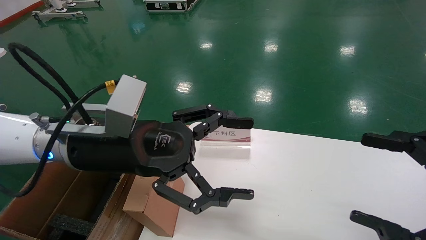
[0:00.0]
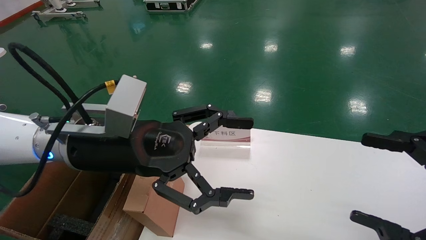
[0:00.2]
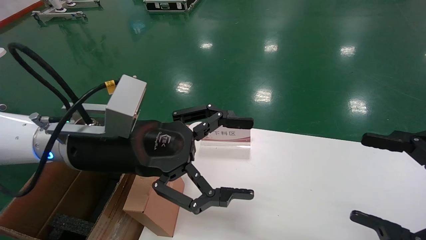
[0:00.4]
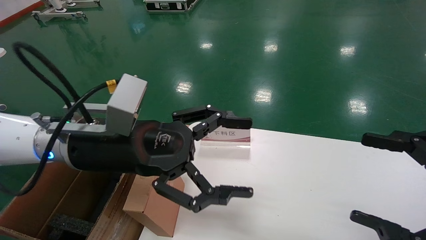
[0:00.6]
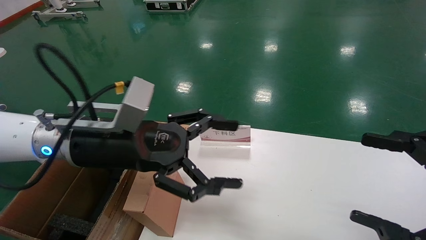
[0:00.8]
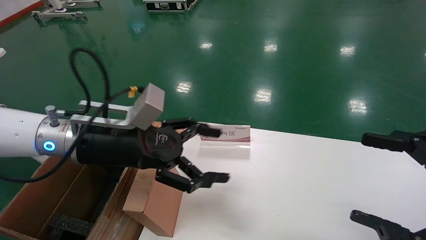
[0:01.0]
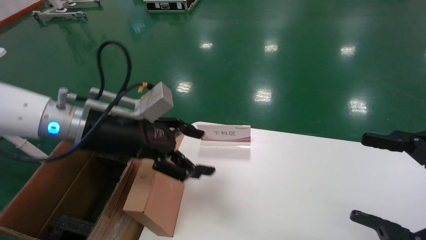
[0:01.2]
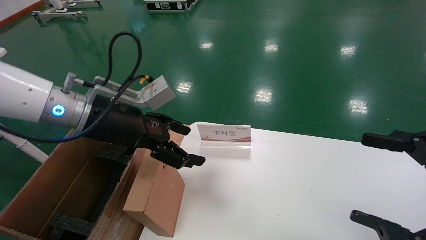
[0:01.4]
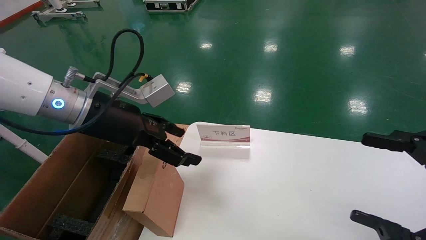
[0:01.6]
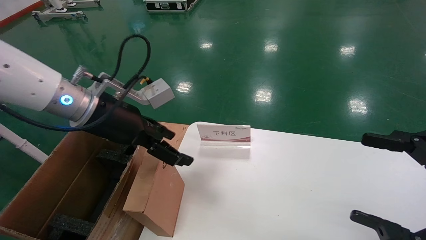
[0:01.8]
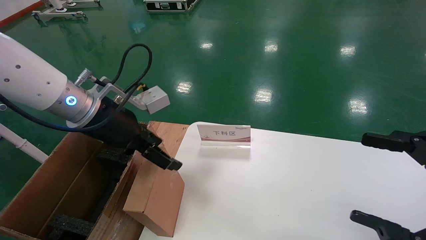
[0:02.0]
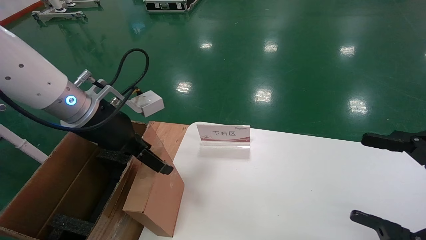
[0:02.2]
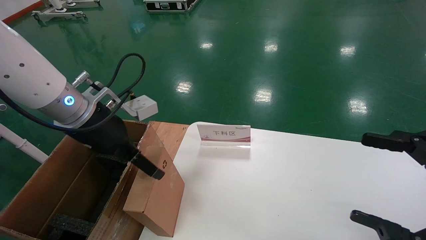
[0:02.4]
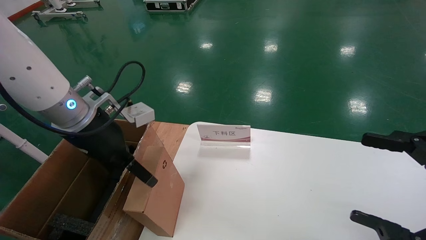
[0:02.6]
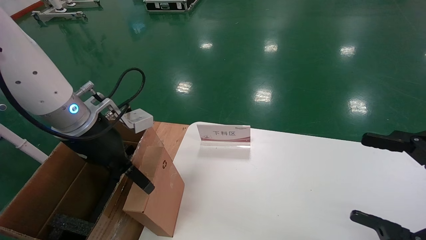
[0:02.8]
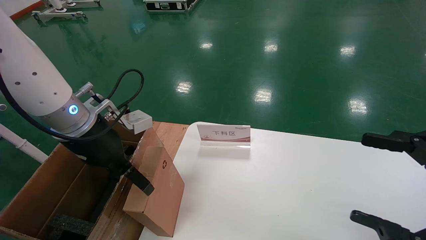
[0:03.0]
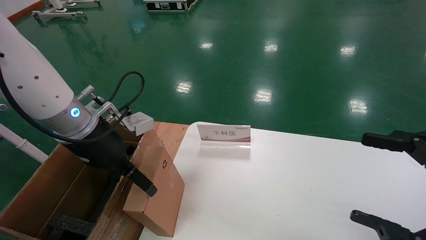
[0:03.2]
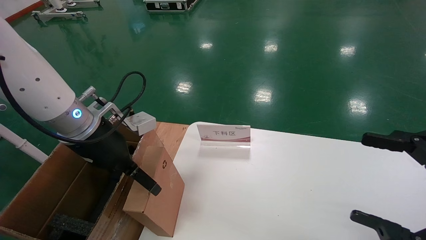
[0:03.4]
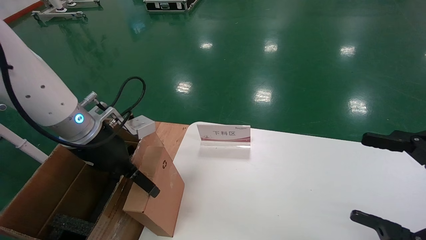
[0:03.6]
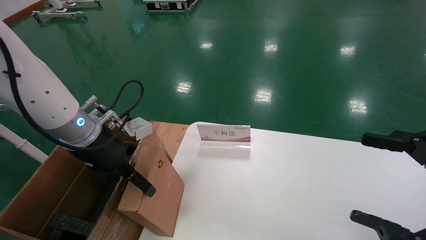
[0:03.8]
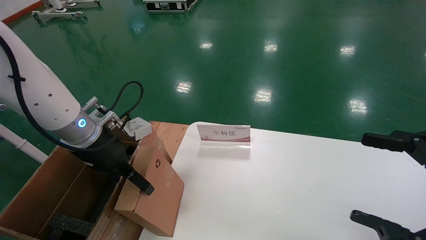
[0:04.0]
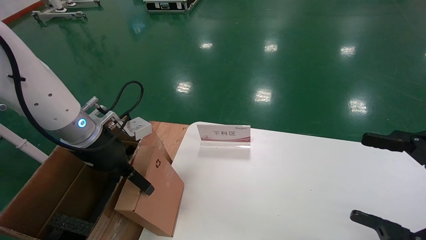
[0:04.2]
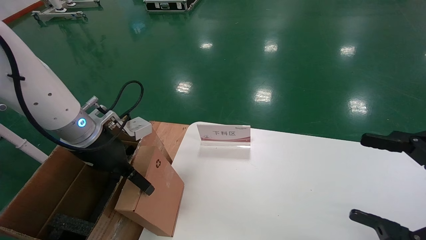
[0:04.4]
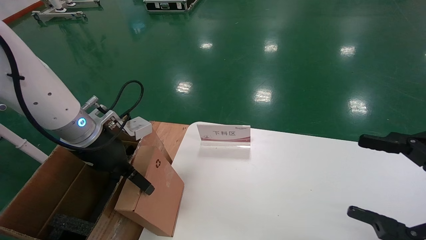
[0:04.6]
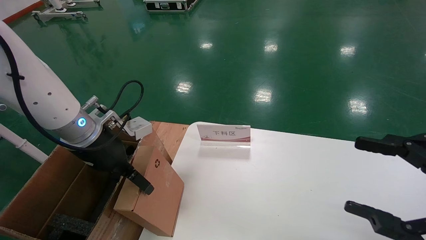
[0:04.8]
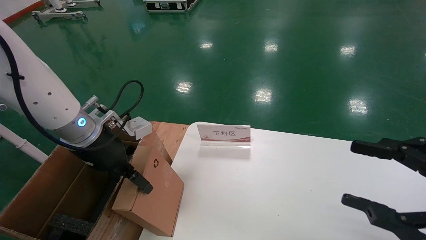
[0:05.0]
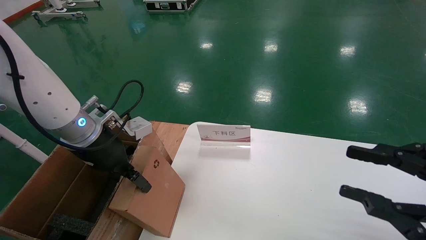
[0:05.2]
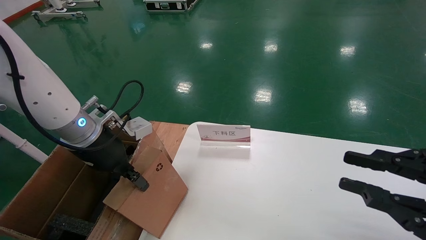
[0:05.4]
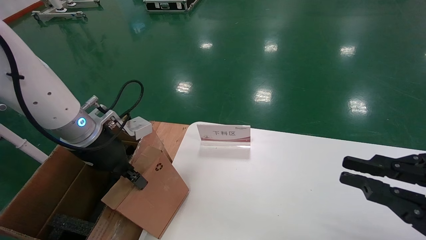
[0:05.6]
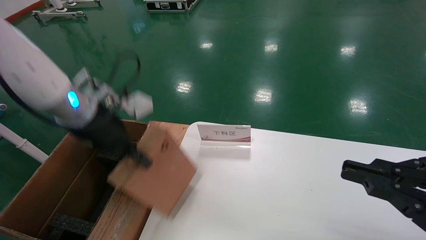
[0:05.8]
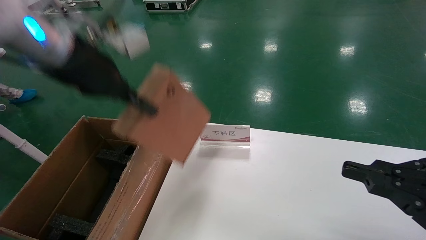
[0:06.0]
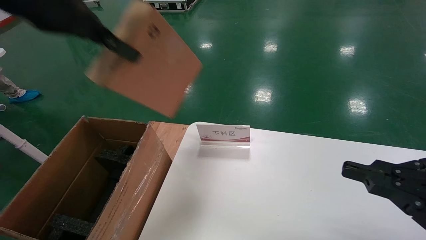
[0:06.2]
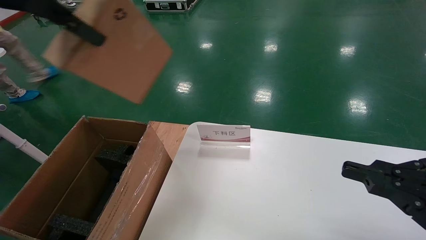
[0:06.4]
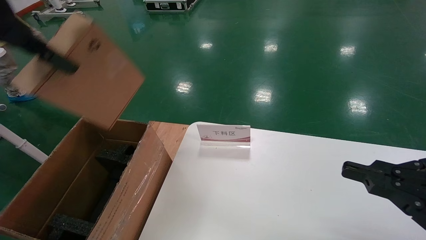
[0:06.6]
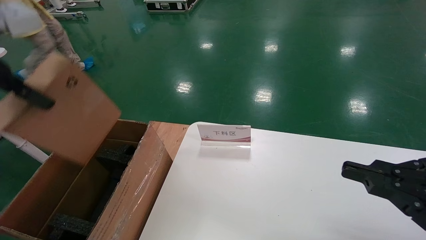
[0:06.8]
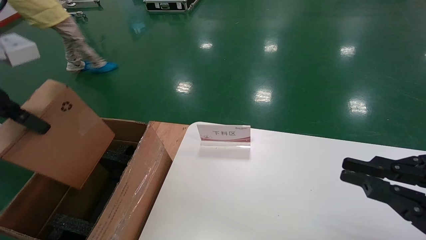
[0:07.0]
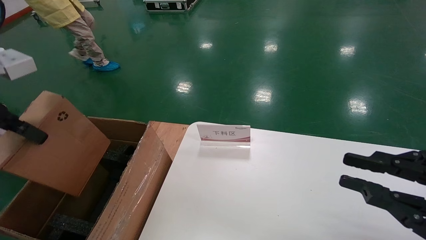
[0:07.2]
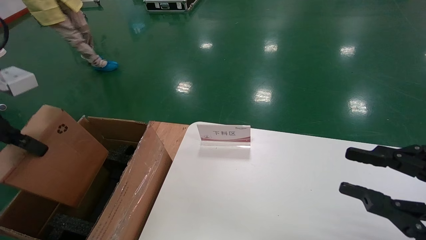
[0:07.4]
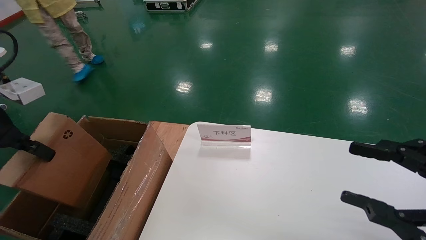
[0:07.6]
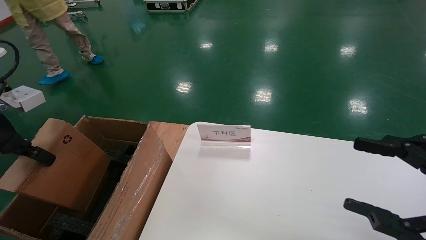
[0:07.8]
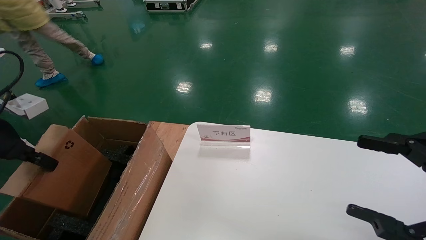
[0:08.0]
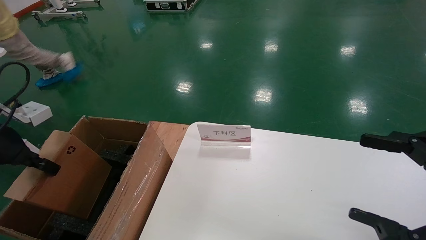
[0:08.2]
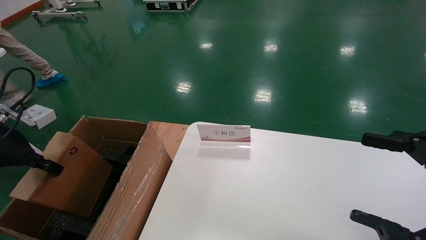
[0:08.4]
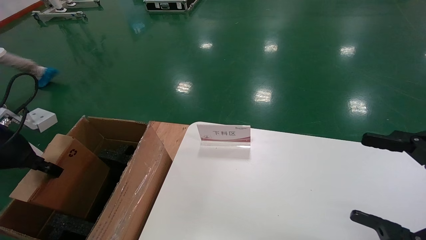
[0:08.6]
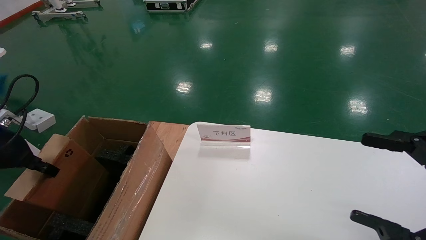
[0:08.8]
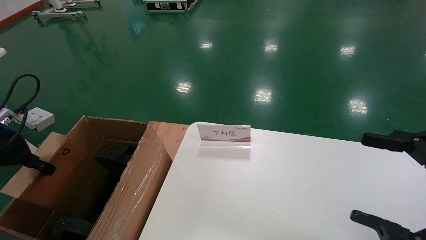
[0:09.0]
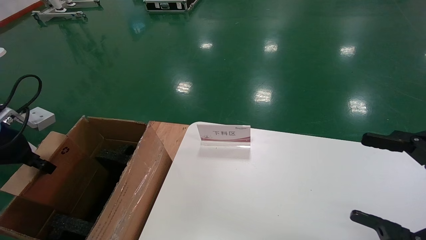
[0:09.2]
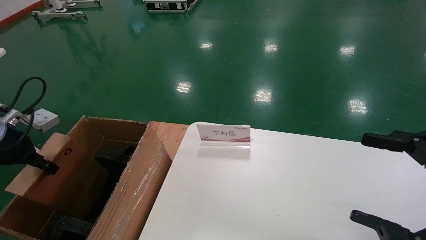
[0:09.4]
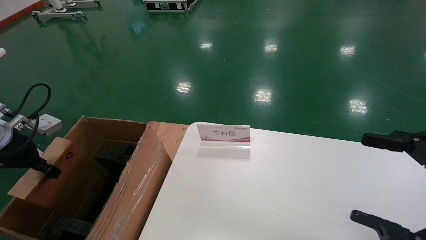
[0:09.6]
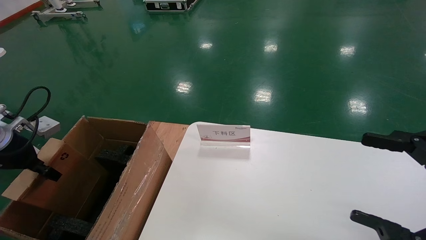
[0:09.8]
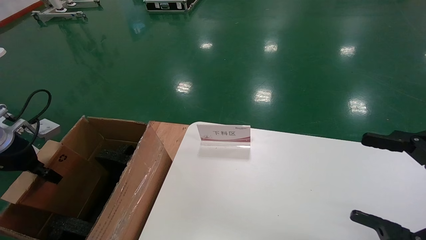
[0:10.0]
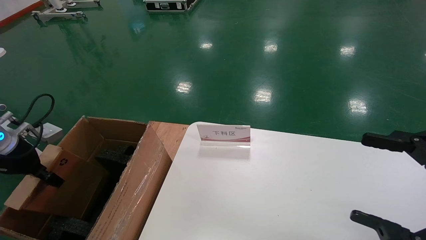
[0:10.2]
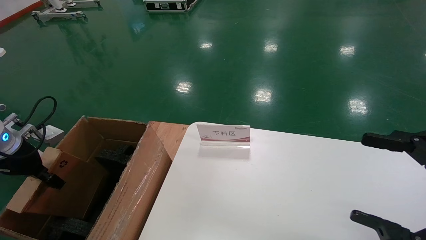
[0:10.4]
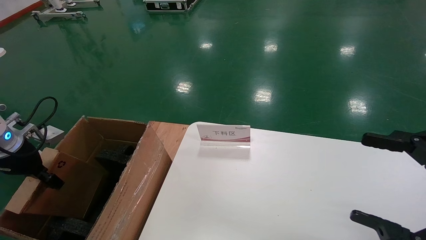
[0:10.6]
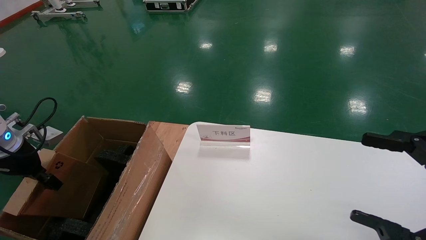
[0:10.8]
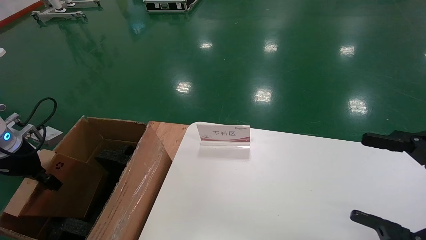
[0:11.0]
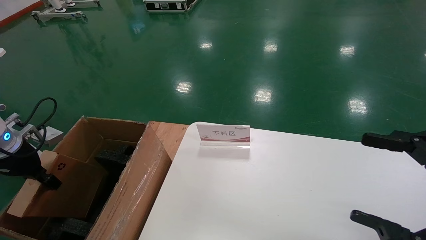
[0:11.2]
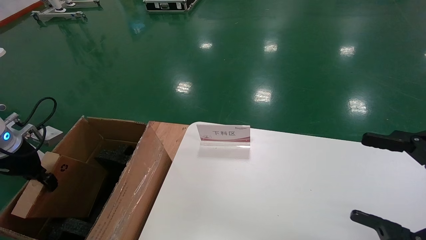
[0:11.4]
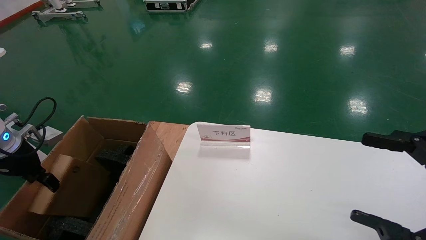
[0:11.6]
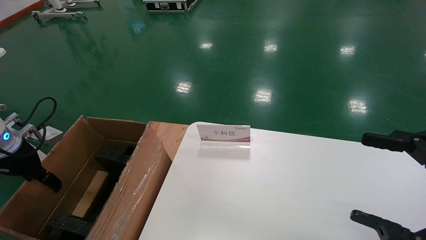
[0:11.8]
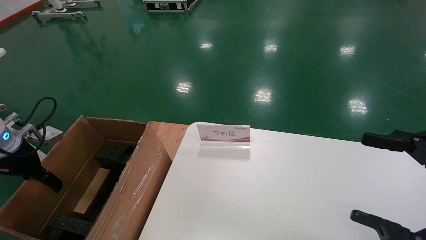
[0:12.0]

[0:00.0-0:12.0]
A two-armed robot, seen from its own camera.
Task of the whole recording: pick up the small cardboard box and load it into the large cardboard box.
Step, 0:01.0 to 0:06.2: Pick up the mouse and power cord box.
Step, 0:06.4 to 0:12.0: Place the mouse and power cord box into the case.
0:00.0 to 0:01.6: The left gripper shifts approximately 5 cm forward.
0:03.0 to 0:04.4: The grippers make only small movements.
0:04.4 to 0:06.0: The left gripper heads upward, covering about 15 cm, and closes. Meanwhile the right gripper closes.
0:06.0 to 0:07.6: The right gripper opens. The left gripper travels to the left, downward and backward by approximately 20 cm.
0:07.6 to 0:09.0: The right gripper opens up. Meanwhile the left gripper heads downward and to the left, covering about 10 cm.
0:09.0 to 0:10.4: The left gripper heads downward, covering about 5 cm.
0:10.4 to 0:12.0: The left gripper opens.

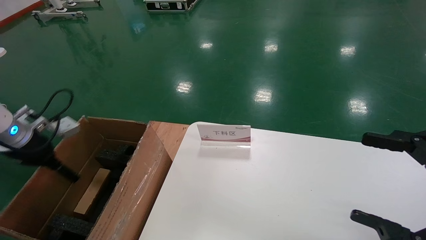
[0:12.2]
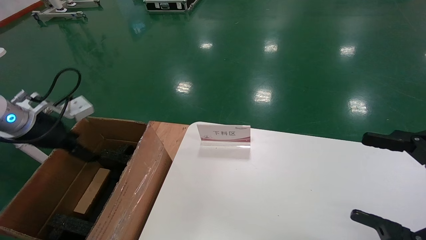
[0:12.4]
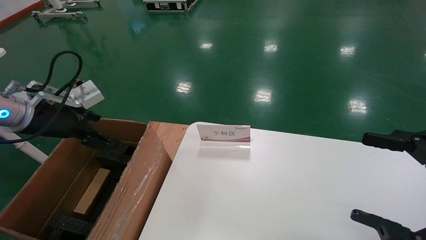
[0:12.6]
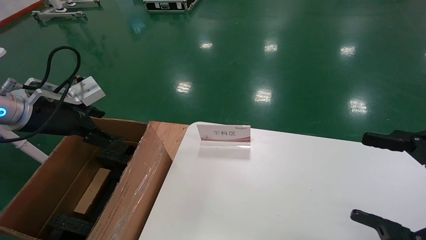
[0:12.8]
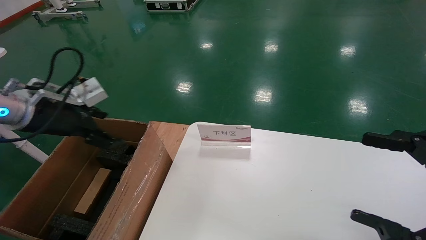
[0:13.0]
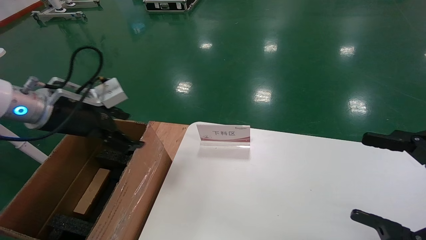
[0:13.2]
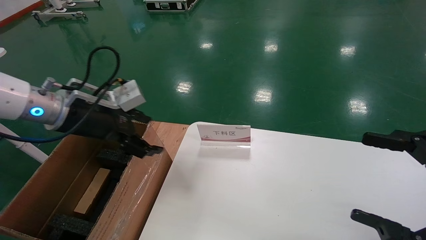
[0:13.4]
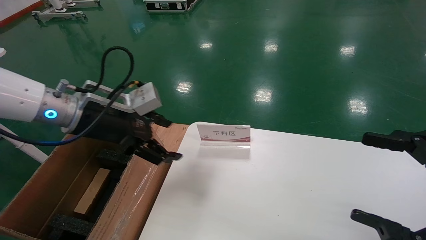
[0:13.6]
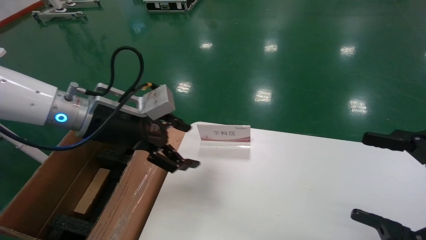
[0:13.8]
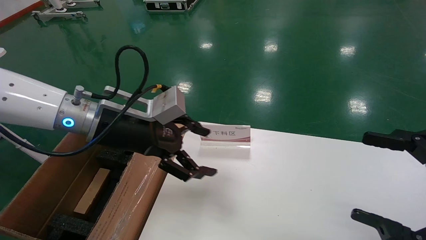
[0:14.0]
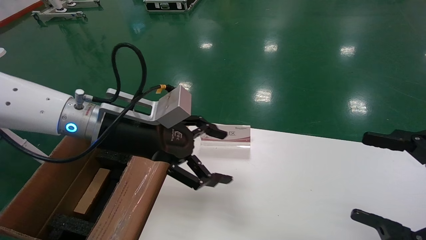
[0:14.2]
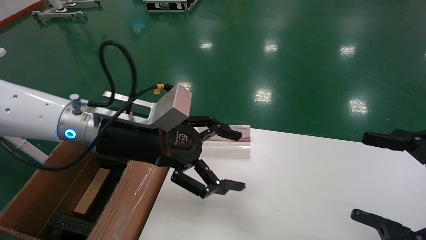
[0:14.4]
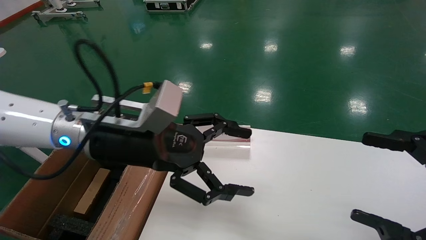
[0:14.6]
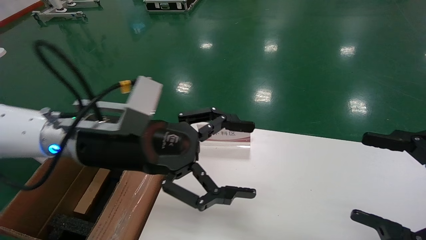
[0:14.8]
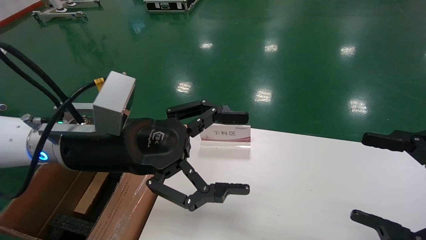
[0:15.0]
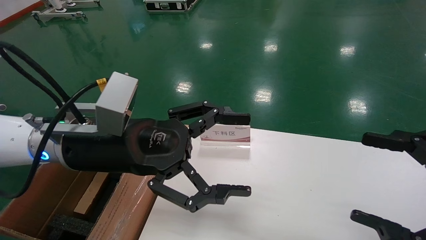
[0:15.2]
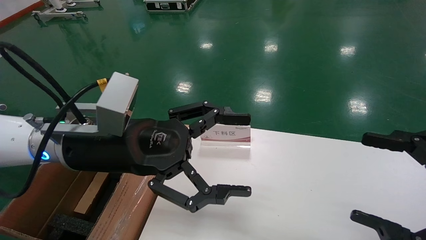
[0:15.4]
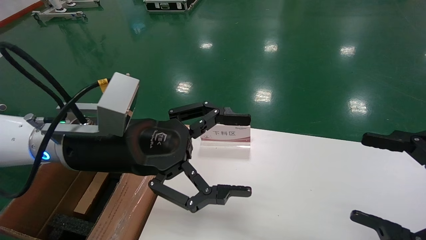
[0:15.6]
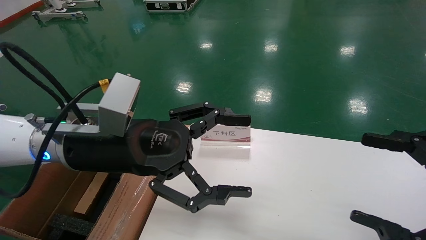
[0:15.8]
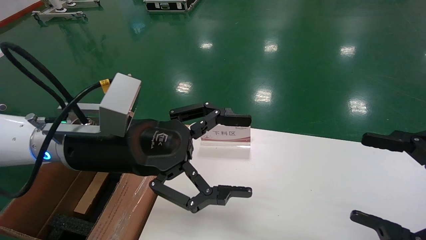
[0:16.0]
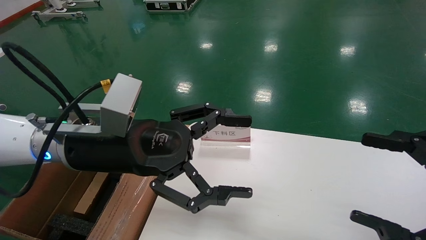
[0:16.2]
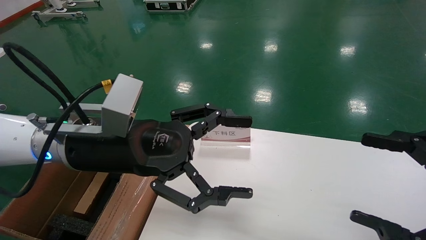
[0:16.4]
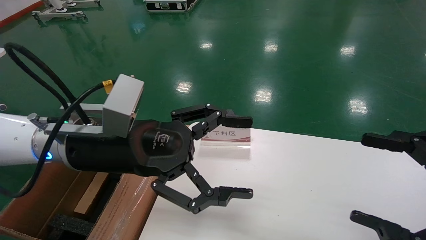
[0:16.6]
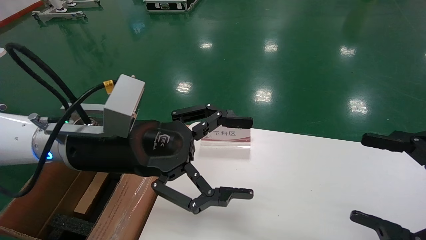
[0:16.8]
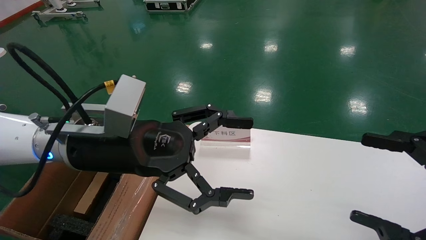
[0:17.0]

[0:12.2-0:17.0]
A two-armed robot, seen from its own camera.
Task of the whole recording: pick up the small cardboard box and load it into the large cardboard box.
0:12.2 to 0:13.8: The left gripper shifts about 20 cm to the right.
0:13.8 to 0:15.4: The left gripper shifts approximately 5 cm backward.
0:15.4 to 0:17.0: Neither gripper changes place.
